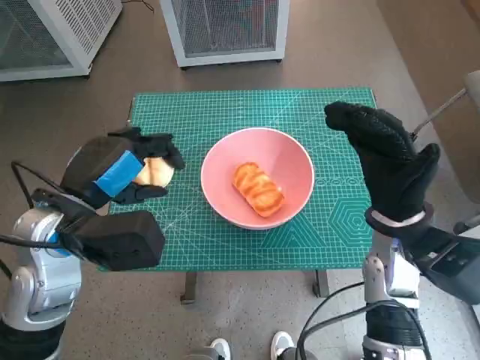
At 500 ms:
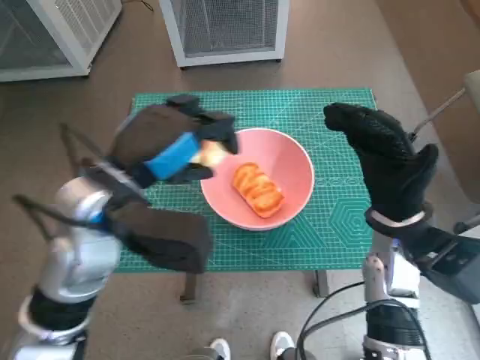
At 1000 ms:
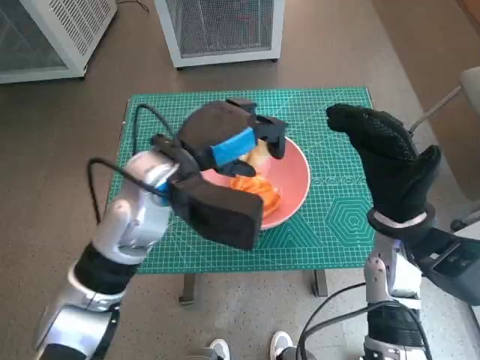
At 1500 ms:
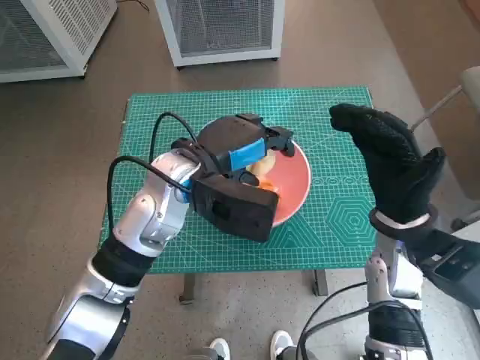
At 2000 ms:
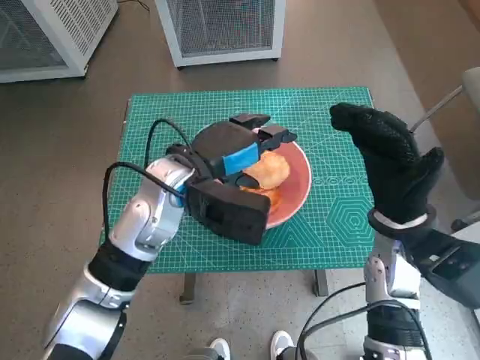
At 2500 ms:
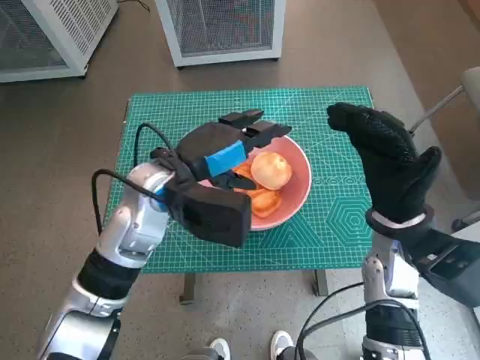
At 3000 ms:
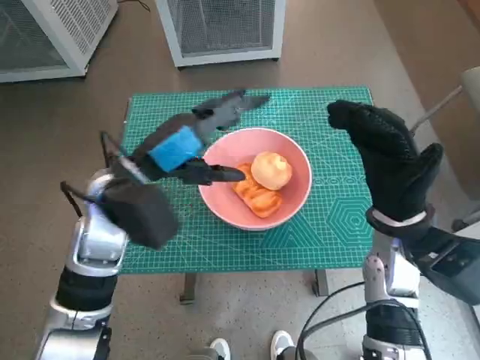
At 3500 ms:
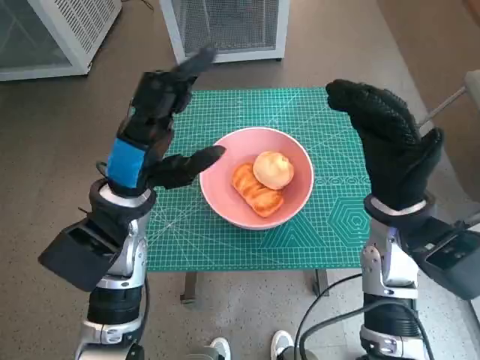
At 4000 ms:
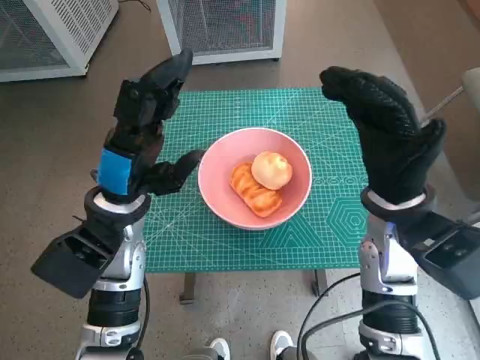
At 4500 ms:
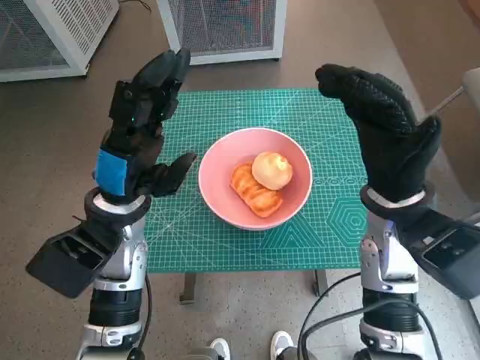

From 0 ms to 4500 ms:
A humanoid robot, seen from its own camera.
Task of the whole recording: Push the bowl into the center of the table and put the bread into the bowl.
Step, from 0 ms to 1500 ms: Place the round bread in pink bowl with left hand.
From 0 ms to 2000 ms: The left hand moves to the right and forward, about 15 cm.
From 2000 ms to 4500 ms: The left hand is displaced to the left by about 5 cm.

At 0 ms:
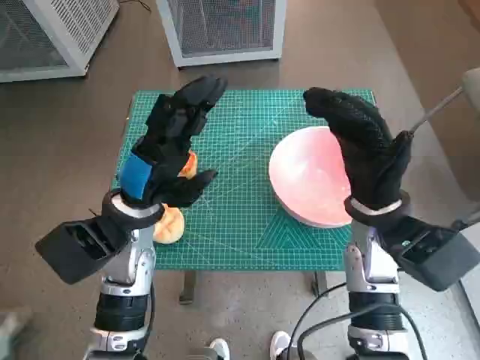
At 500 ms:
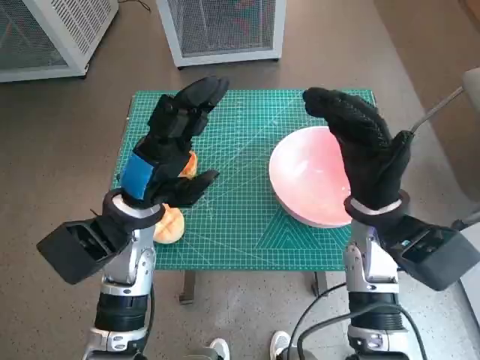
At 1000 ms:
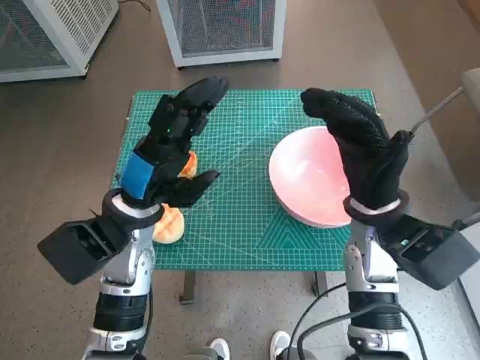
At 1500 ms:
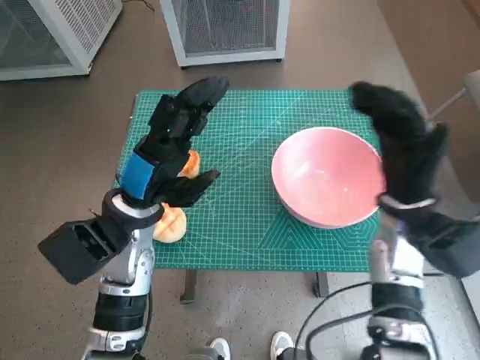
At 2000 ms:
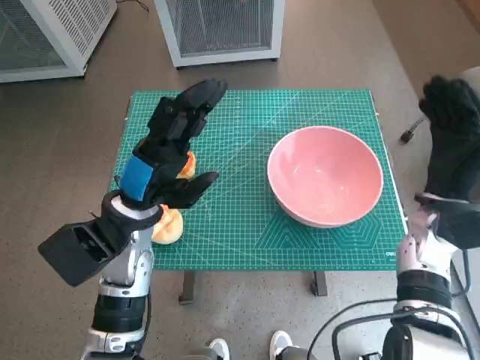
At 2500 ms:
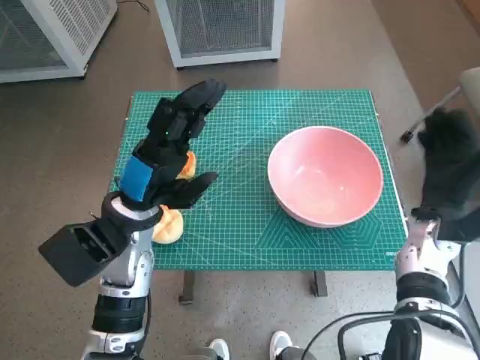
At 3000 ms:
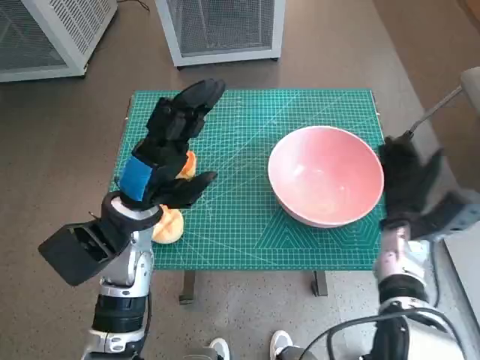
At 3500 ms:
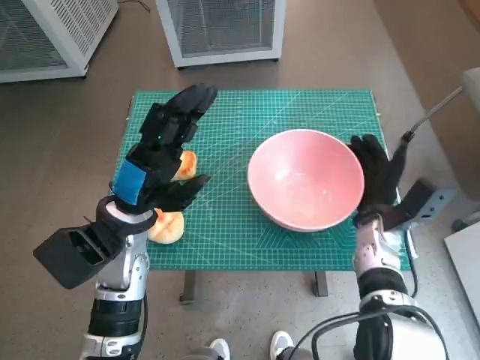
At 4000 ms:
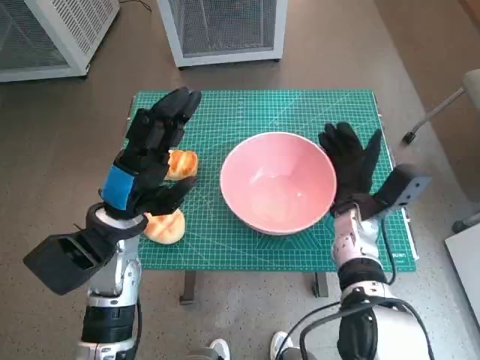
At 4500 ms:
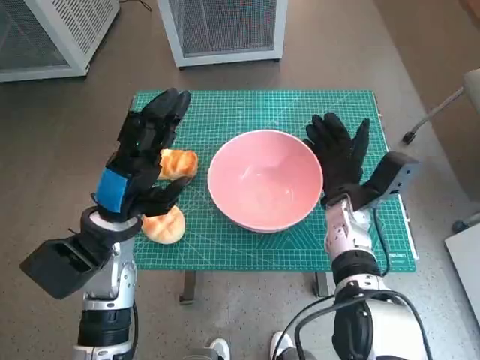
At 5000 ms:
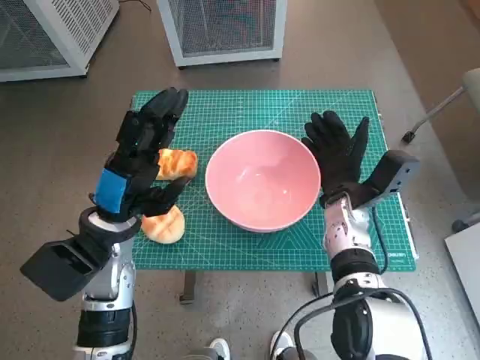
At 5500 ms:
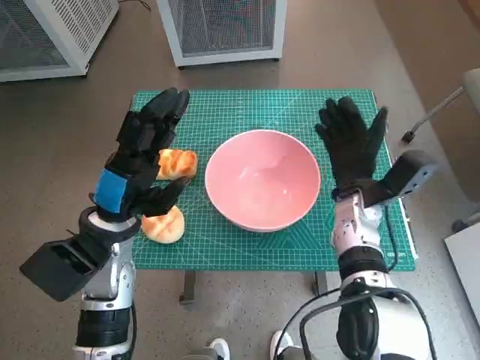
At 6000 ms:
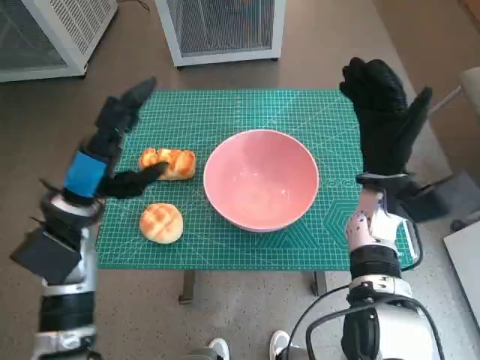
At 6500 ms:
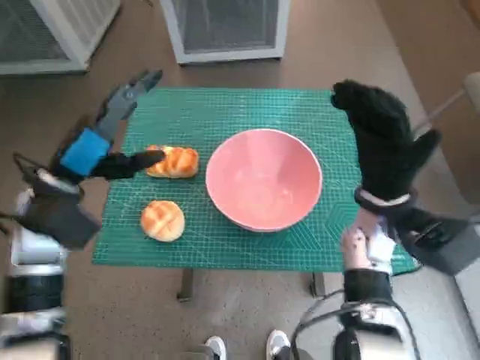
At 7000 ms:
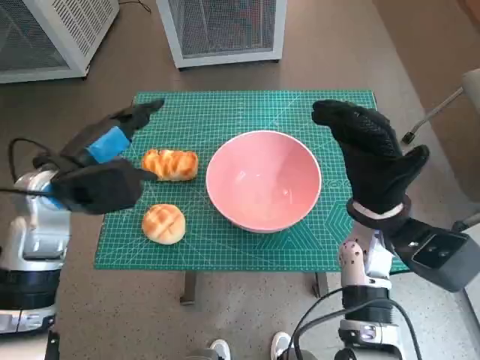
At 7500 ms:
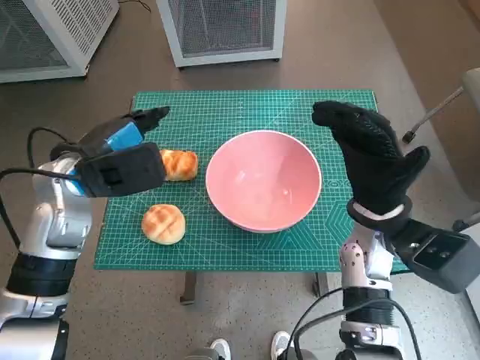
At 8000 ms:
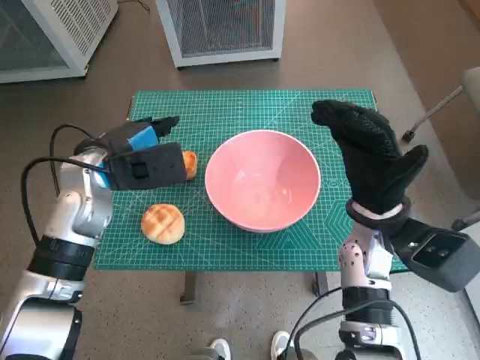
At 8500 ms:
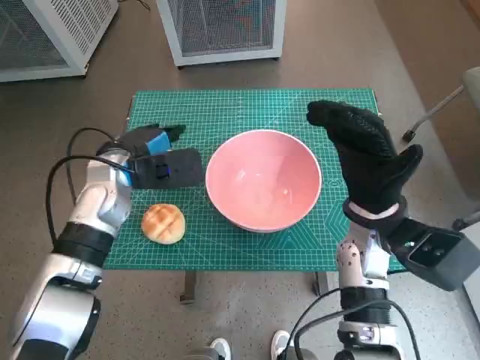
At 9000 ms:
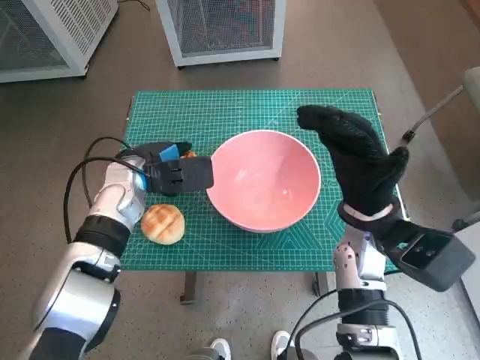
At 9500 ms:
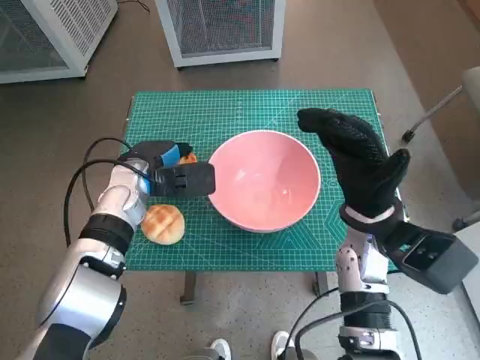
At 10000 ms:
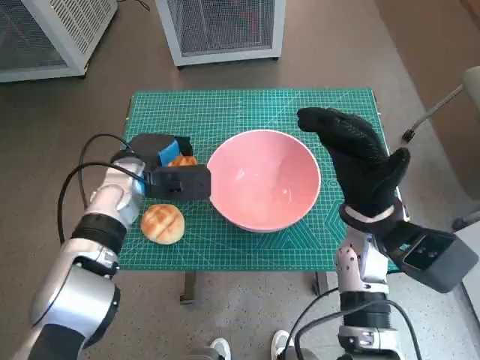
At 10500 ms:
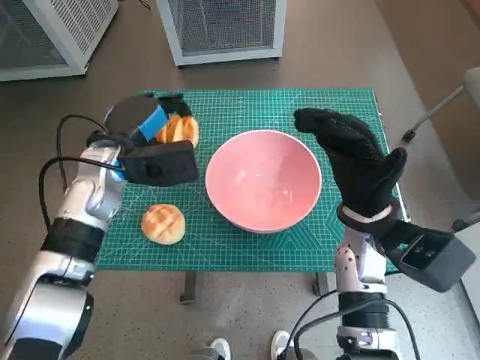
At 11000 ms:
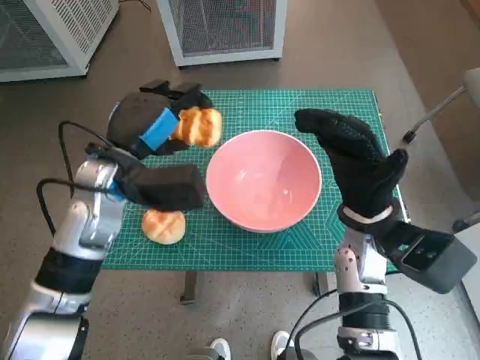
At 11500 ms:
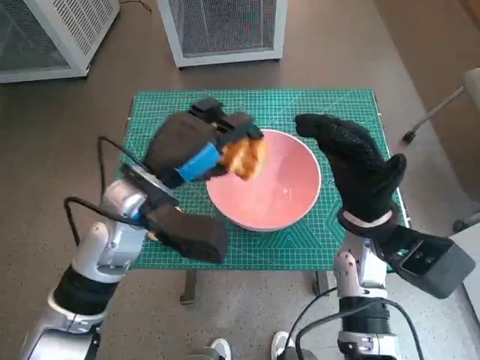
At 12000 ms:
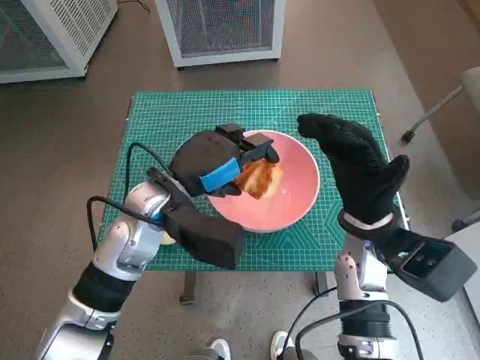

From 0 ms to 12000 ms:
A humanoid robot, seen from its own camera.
Task of the whole recording: Push the bowl into the center of the table and put the bread into the bowl.
Step, from 0 ms to 5000 ms: Move the pink bowl to the center of table with right hand.
Step, from 5500 ms to 9500 ms: Grasp the long bread with left hand.
From 2000 ms to 4000 ms: The right hand moves to the left and downward, about 10 cm.
From 4000 ms to 6000 ms: The right hand shifts roughly 5 cm upward.
From 6000 ms to 8000 ms: The left hand goes roughly 5 cm forward.
From 8000 ms to 10000 ms: The left hand is displaced downward by about 5 cm.
From 10000 ms to 12000 ms: The left hand heads to the right, backward and upward, covering approximately 10 cm.

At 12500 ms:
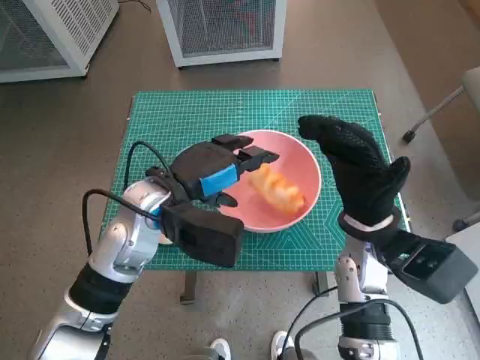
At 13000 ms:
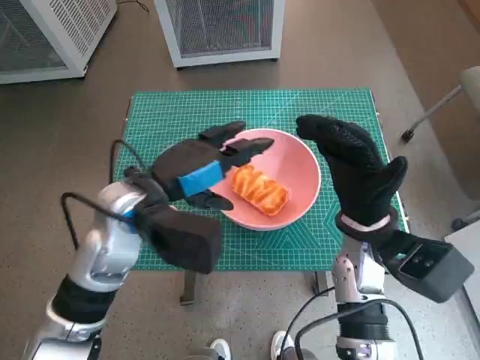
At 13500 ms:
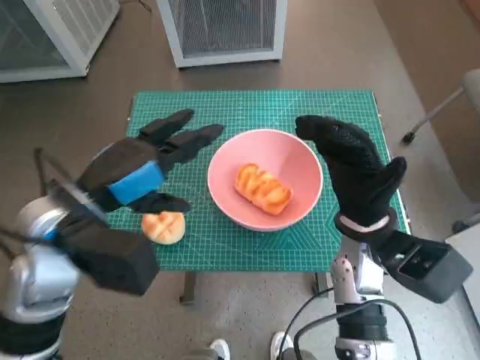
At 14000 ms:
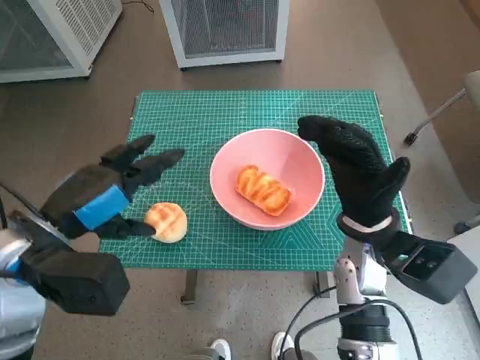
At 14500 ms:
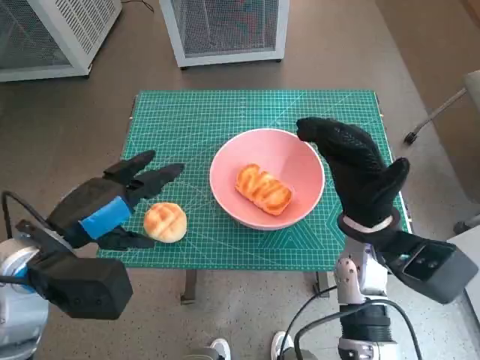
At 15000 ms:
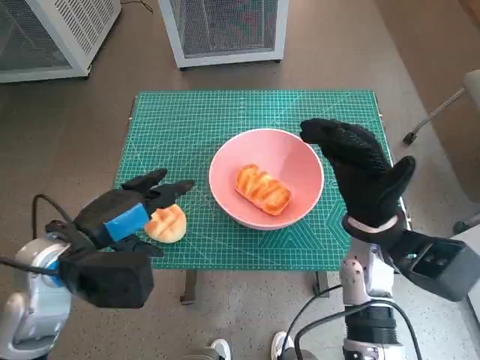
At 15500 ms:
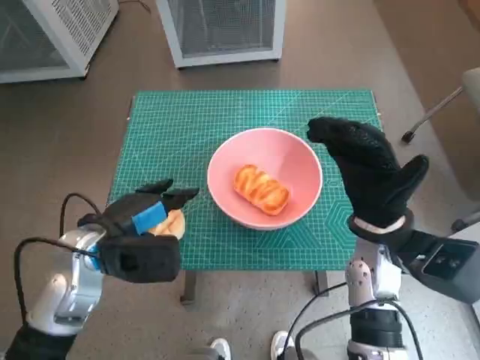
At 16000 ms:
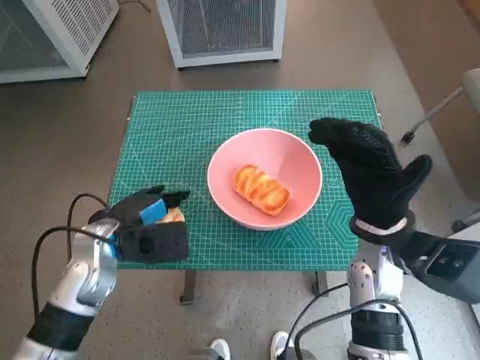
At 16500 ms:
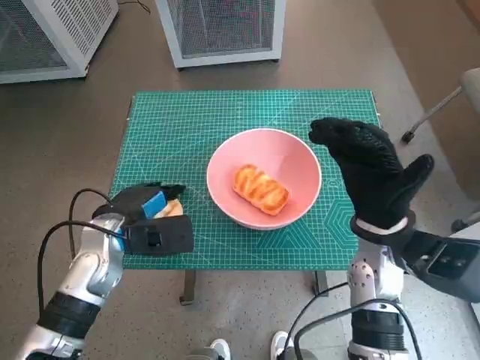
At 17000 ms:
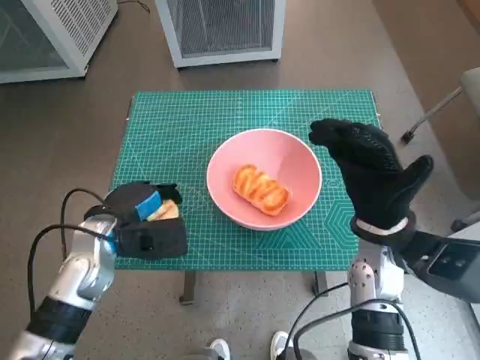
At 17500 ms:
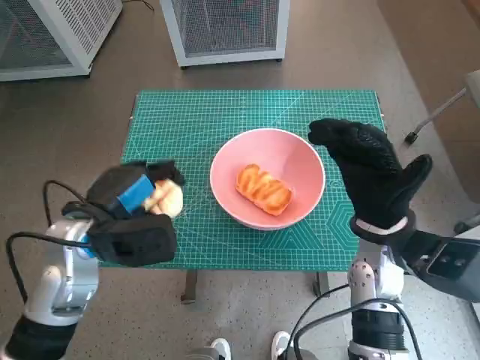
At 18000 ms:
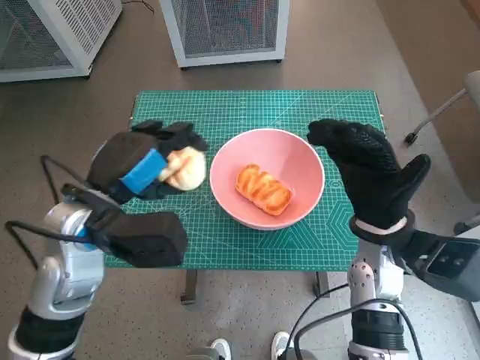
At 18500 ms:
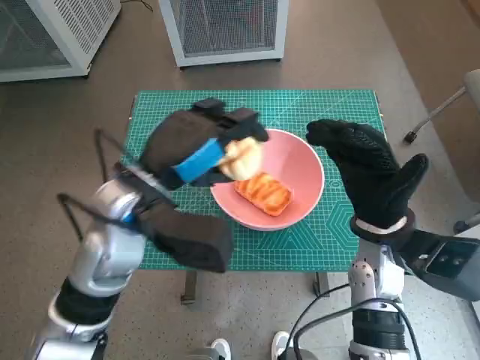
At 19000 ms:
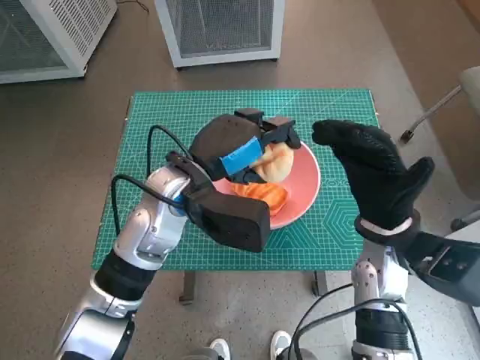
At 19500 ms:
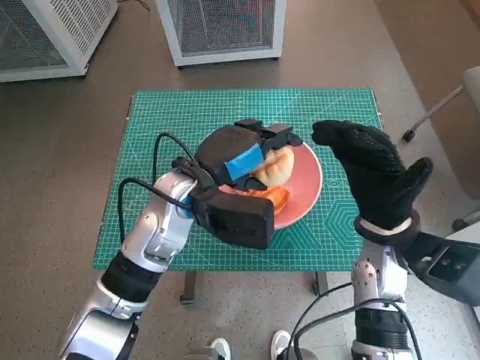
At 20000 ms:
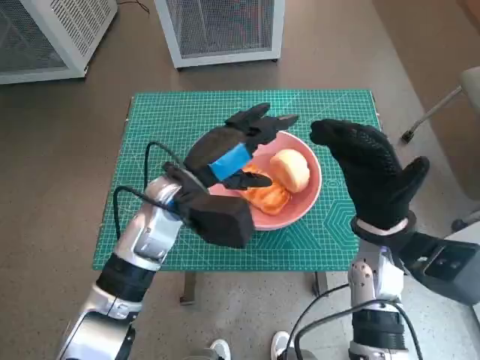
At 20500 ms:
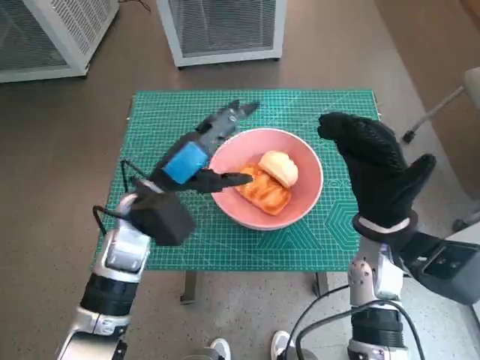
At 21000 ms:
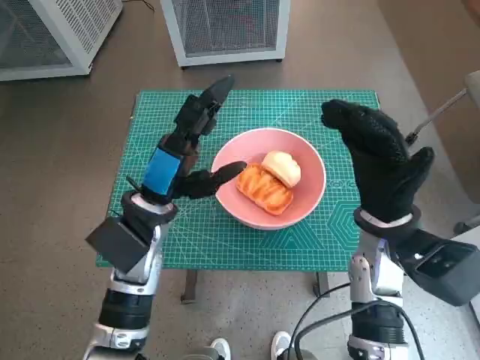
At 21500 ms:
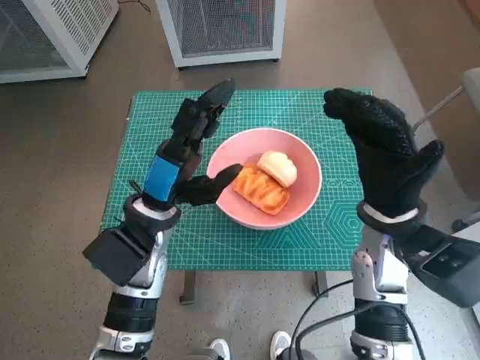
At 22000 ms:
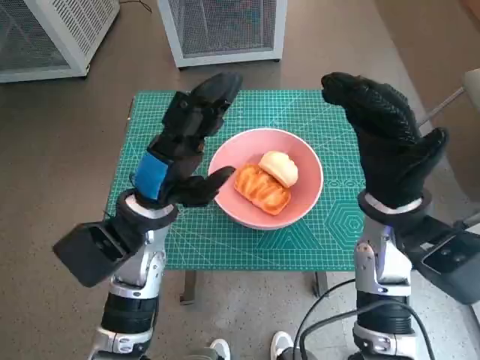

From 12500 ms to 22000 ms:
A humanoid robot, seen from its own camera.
Task of the whole recording: Push the bowl into the center of the table and put the bread into the bowl.
Step, from 12500 ms to 16000 ms: Grasp the round bread with left hand.
Step, from 16500 ms to 19500 ms: Place the round bread in pink bowl with left hand.
From 12500 ms to 14500 ms: The left hand travels to the left and backward by roughly 15 cm.
From 14500 ms to 16500 ms: The left hand shifts some 10 cm downward and forward.
From 16500 ms to 18000 ms: The left hand travels upward by roughly 10 cm.
From 18000 ms to 20000 ms: The left hand moves to the right and forward, some 10 cm.
From 20000 ms to 22000 ms: The left hand moves about 5 cm.
